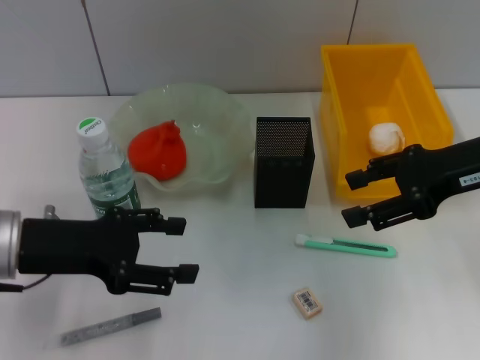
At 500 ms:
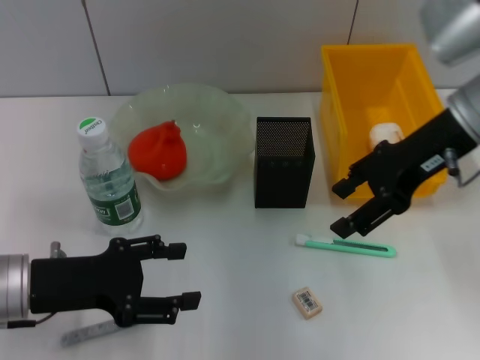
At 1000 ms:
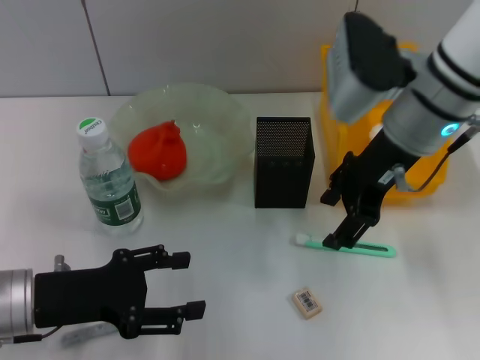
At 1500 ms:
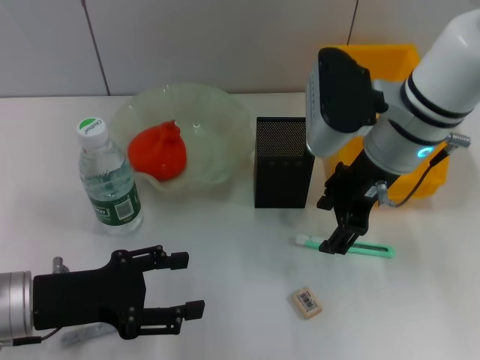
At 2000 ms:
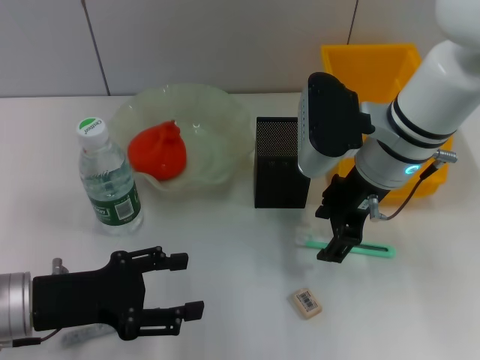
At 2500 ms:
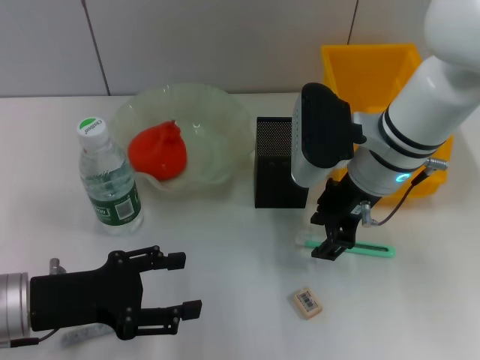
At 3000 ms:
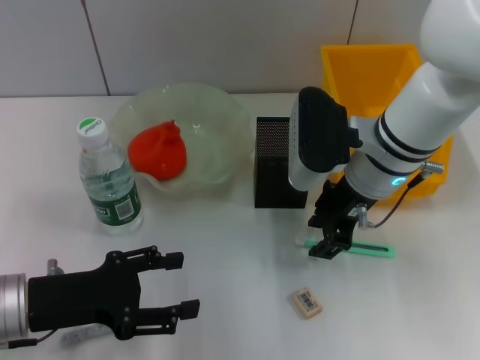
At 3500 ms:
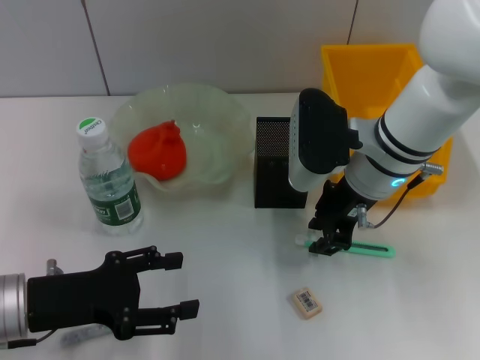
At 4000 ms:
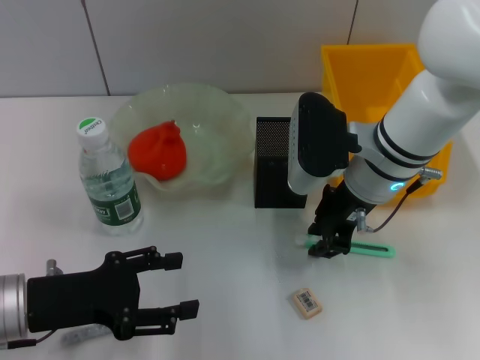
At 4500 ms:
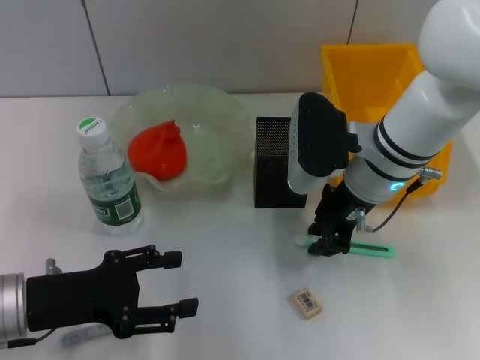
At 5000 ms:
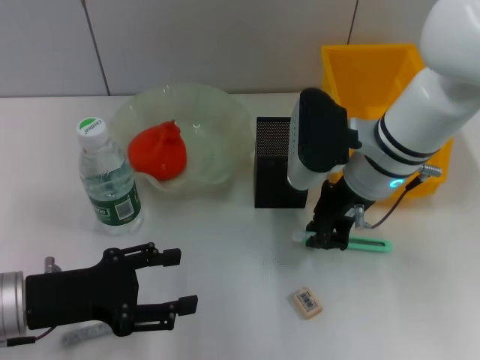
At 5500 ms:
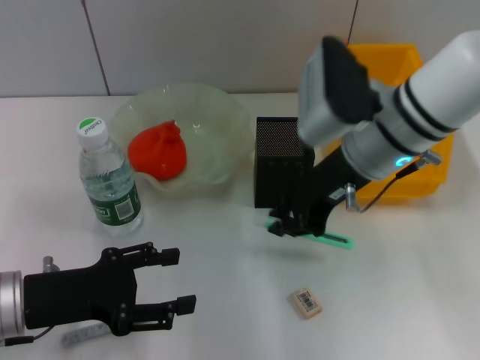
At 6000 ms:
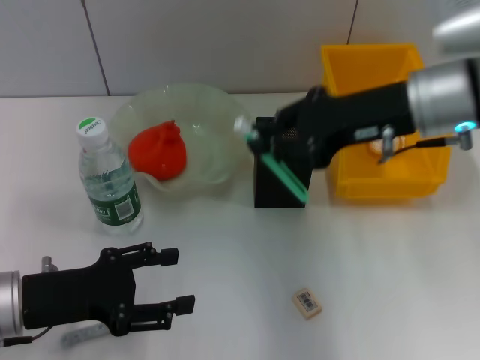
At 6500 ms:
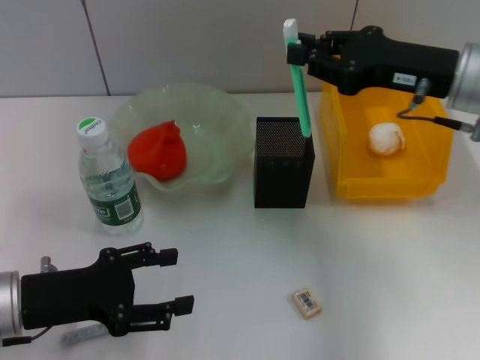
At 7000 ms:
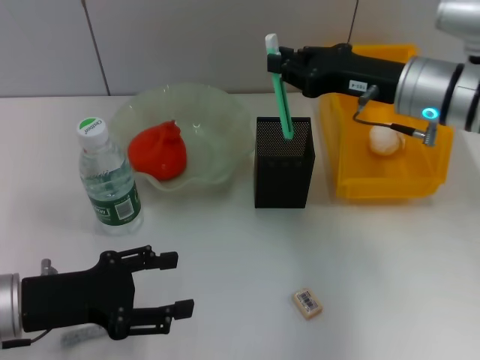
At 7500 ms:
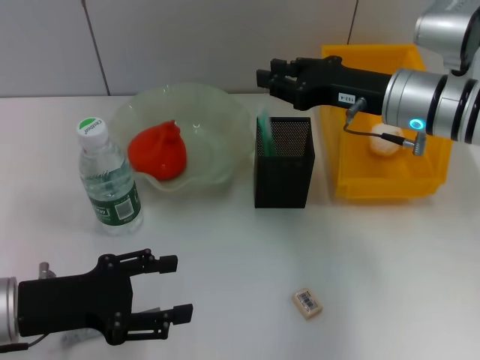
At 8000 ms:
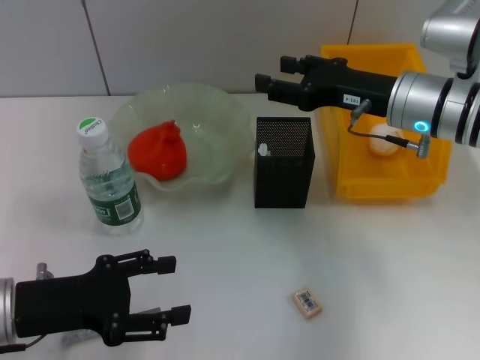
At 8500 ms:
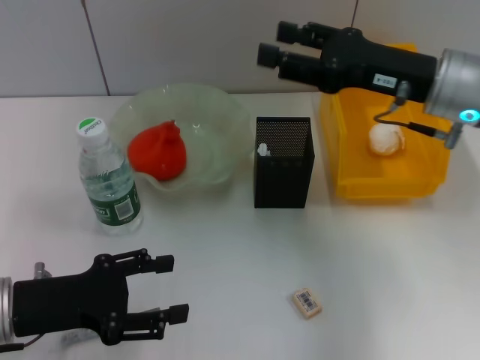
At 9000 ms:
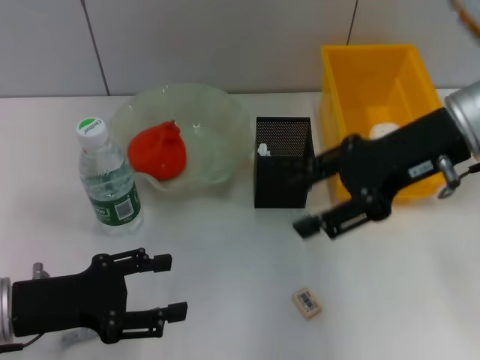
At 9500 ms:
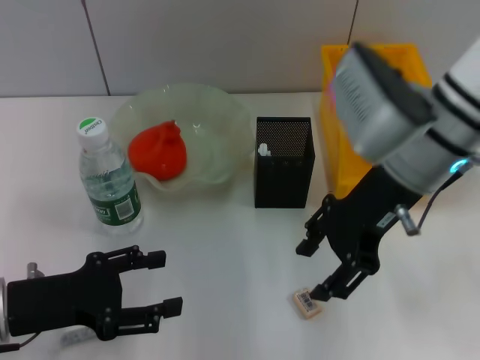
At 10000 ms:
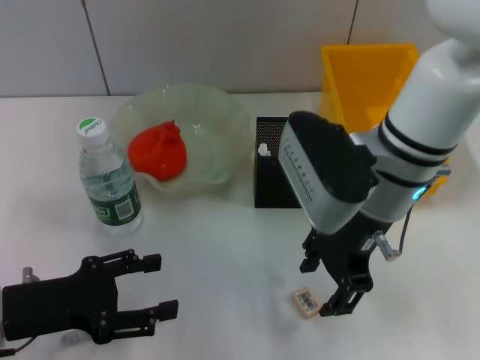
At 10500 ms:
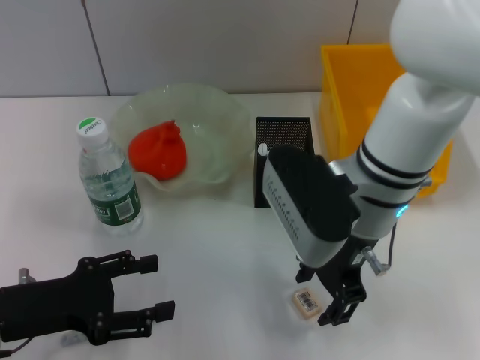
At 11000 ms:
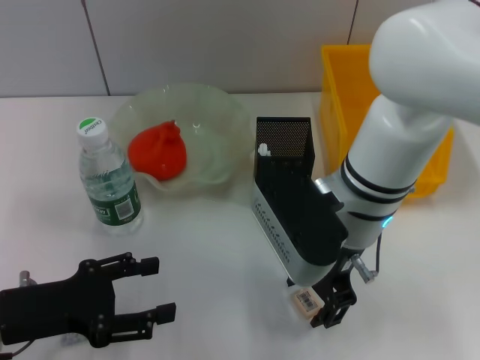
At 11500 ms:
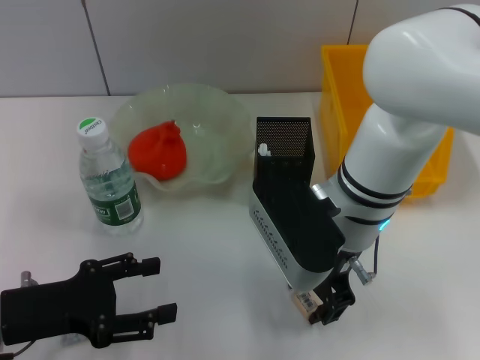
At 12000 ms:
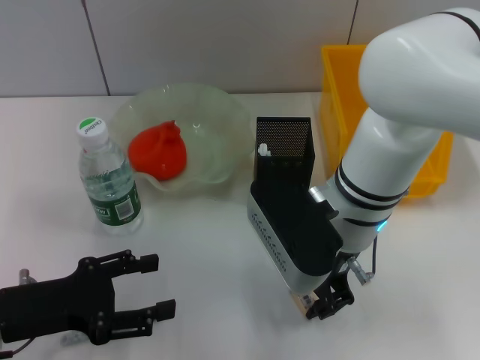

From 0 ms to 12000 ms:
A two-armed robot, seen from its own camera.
Step, from 0 ms to 4500 ms: Grab the blue utility knife with the right hand.
Step, from 5000 ms to 7500 ms: Place the blue utility knife into the pen holder with the right hand.
Step, from 8000 ms to 12000 ms: Grab the eraser with the right hand.
From 0 ms to 2000 ms: The right gripper shifts approximately 15 cm to the left. The left gripper travels downward by roughly 5 cm.
From 2000 ms to 4000 ms: The right gripper closes.
From 4000 ms to 6000 ms: The right gripper travels upward and to the right by about 10 cm.
From 6000 ms to 8000 ms: The right gripper travels downward by approximately 5 cm, and opens.
From 8000 ms to 10000 ms: The right gripper moves to the left and backward, approximately 10 cm.
From 10000 ms to 12000 ms: The grippers make only small movements.

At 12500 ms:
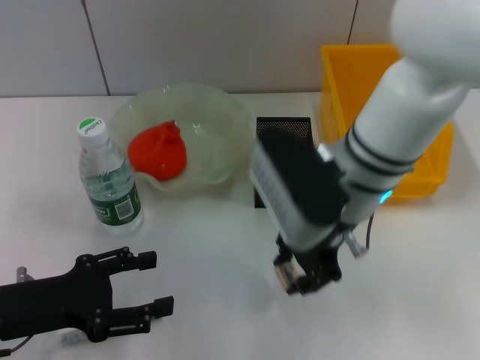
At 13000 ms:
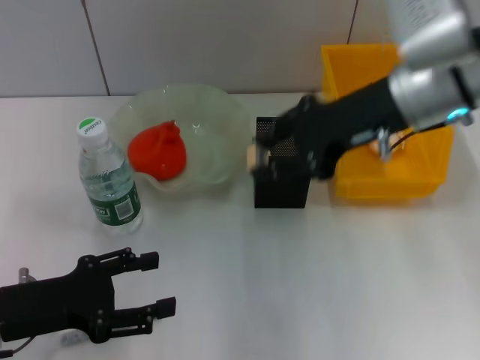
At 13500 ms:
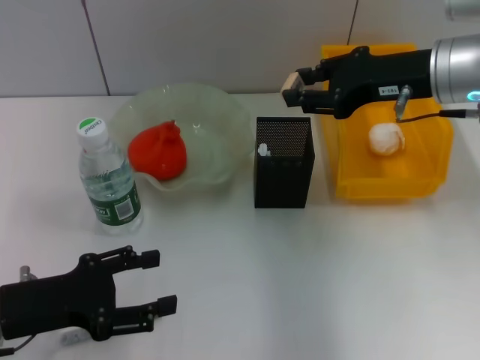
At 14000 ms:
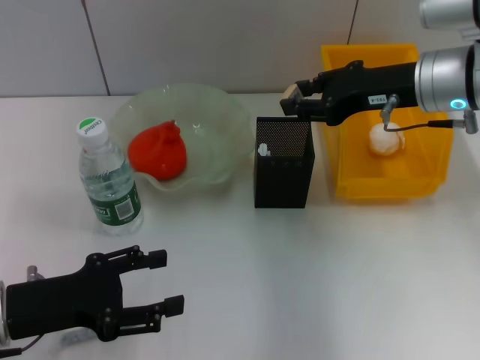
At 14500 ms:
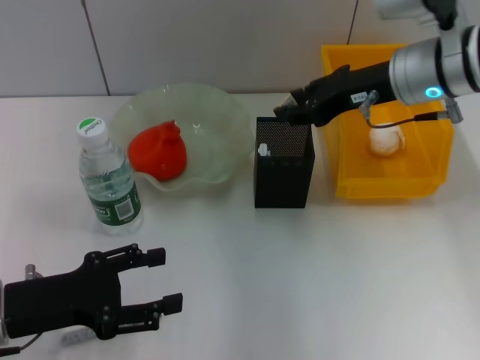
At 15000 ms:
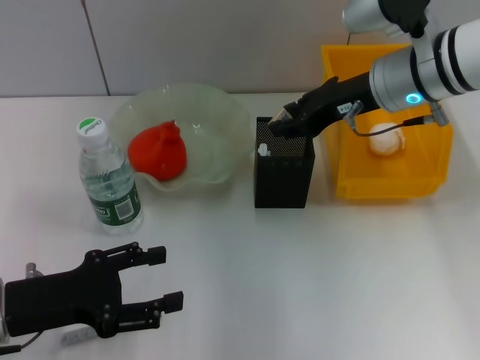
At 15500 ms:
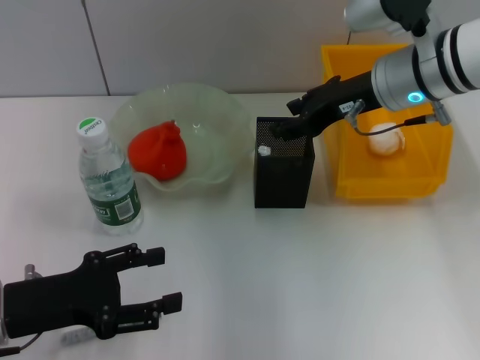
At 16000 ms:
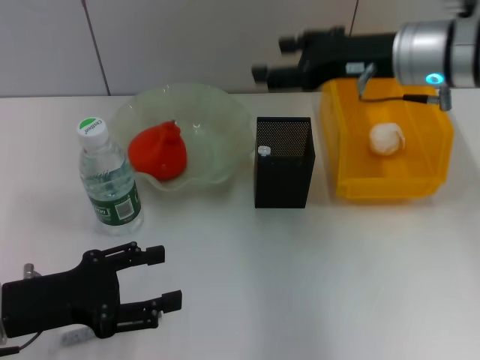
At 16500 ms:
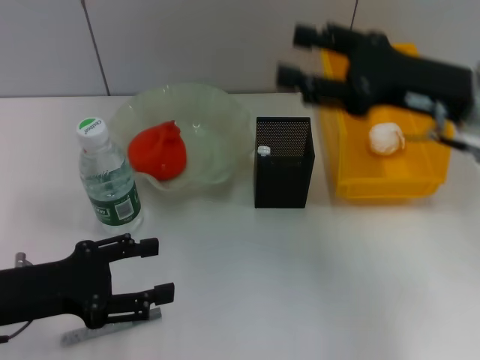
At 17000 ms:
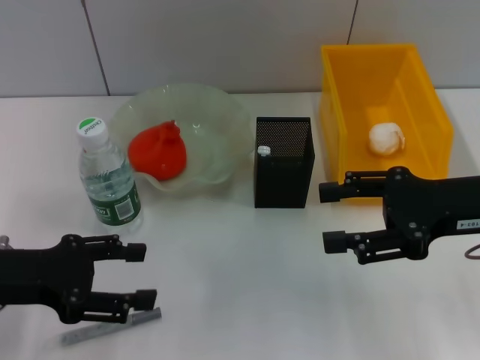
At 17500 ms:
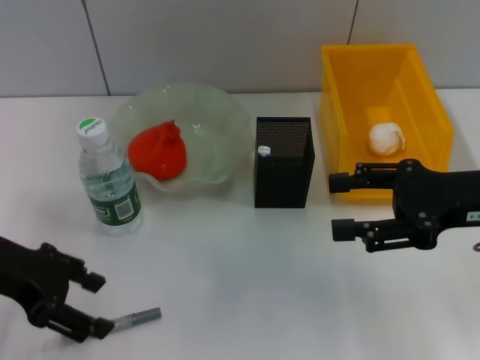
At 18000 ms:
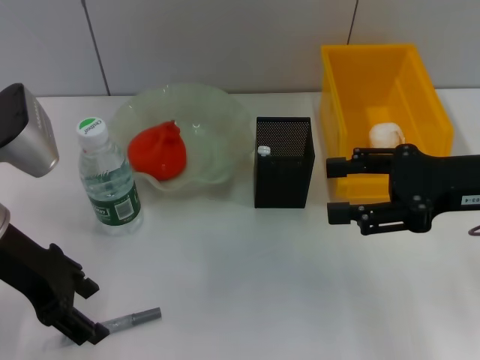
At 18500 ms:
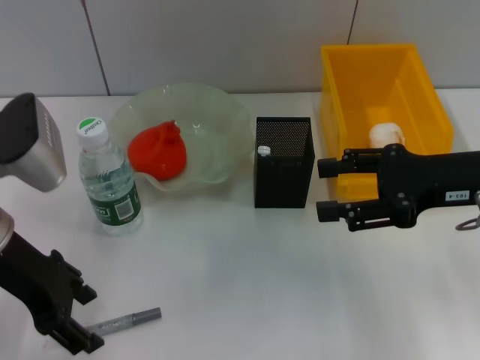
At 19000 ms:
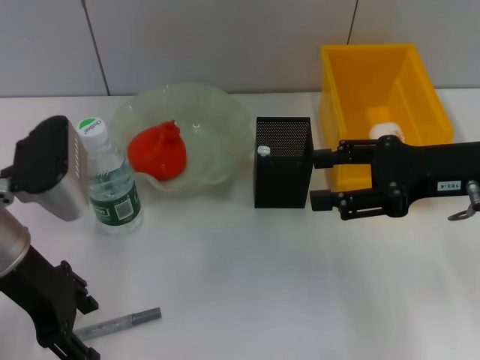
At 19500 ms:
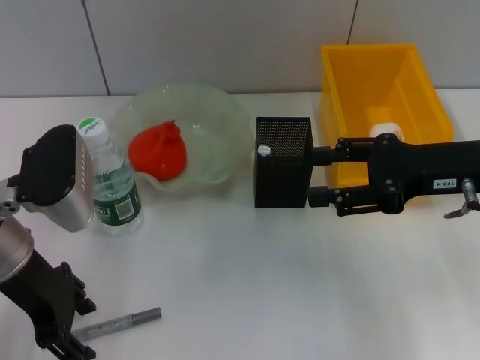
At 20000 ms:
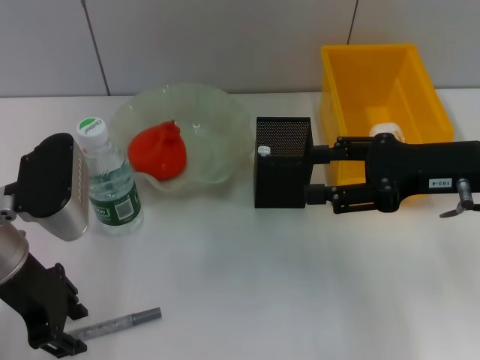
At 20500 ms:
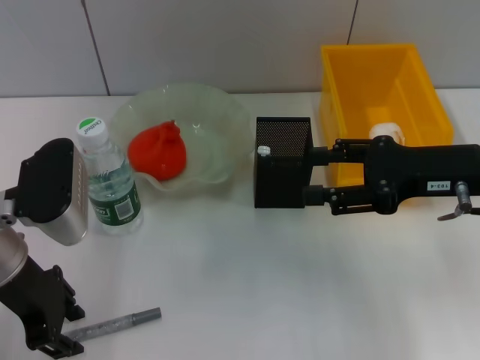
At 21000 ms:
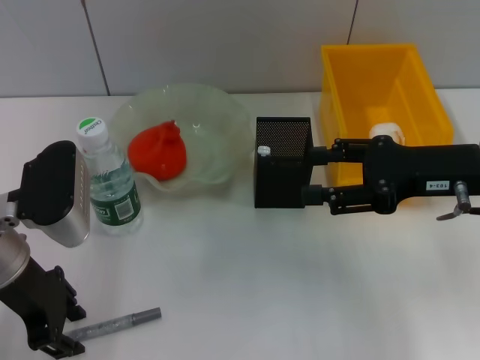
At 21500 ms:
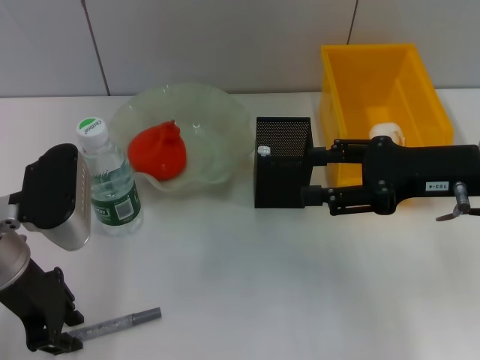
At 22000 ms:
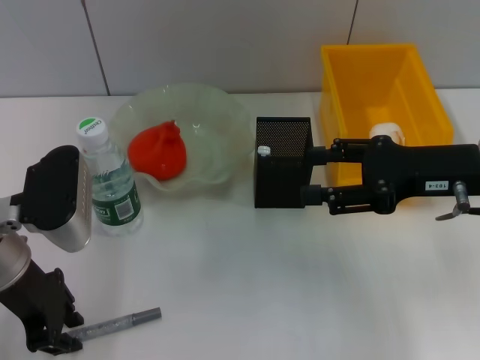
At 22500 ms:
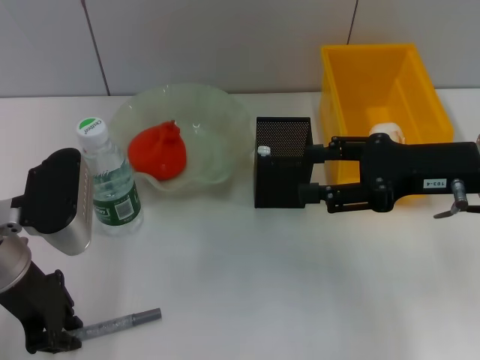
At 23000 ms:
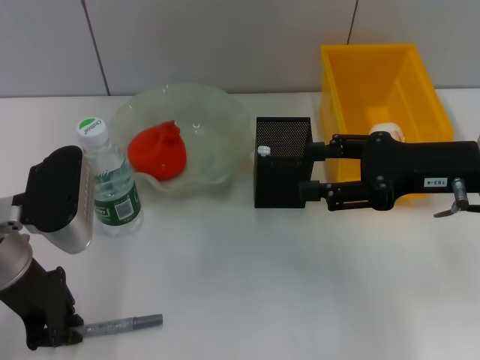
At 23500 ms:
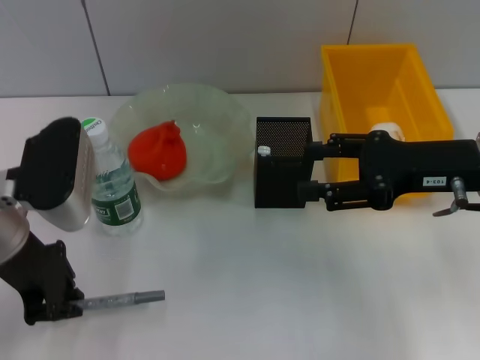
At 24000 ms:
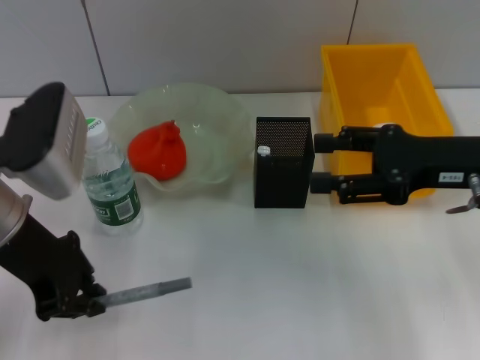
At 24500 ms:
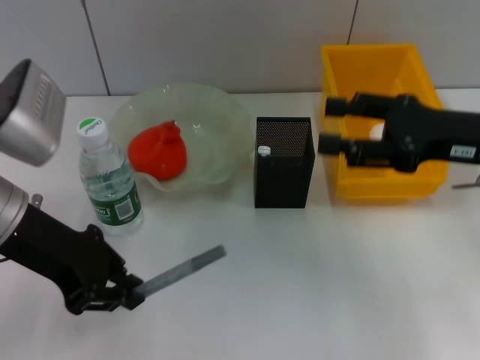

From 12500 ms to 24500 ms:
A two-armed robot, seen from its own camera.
Step, from 12500 ms to 15500 ms: Put the eraser into the pen holder with the right hand.
Step, from 16000 ms to 23000 ms: Grab the gray glue with the left hand.
From 12500 ms to 14500 ms: The right gripper shifts roughly 10 cm to the right and forward.
From 14500 ms to 16500 ms: The right gripper travels backward by some 10 cm, and opens.
From 16500 ms to 18500 ms: The left gripper travels upward and forward by approximately 10 cm.
From 18500 ms to 20500 ms: The left gripper closes.
From 20500 ms to 22500 ms: The left gripper closes.
From 22500 ms to 24500 ms: The left gripper moves upward, some 5 cm.

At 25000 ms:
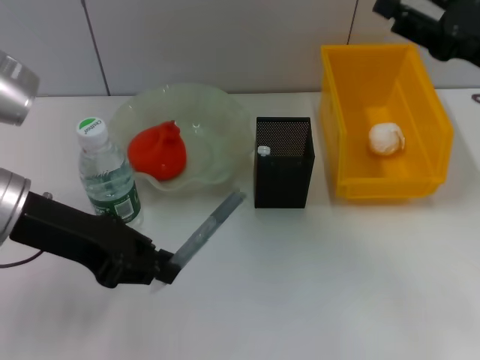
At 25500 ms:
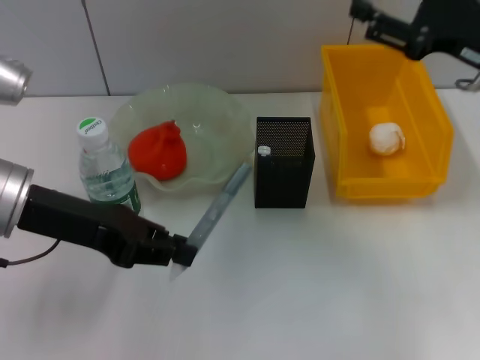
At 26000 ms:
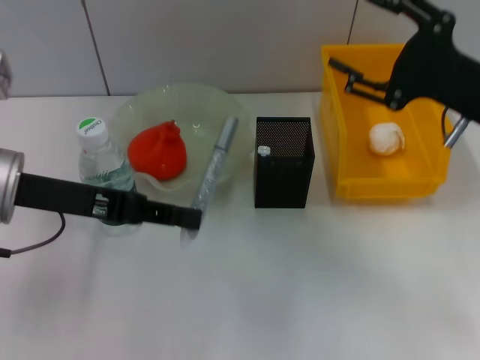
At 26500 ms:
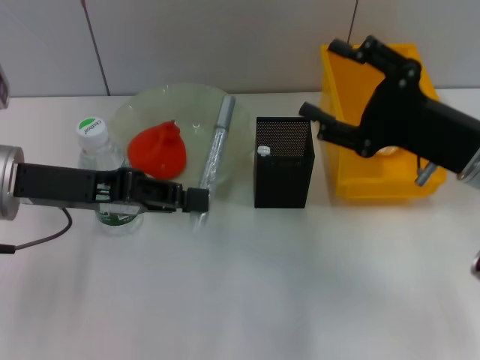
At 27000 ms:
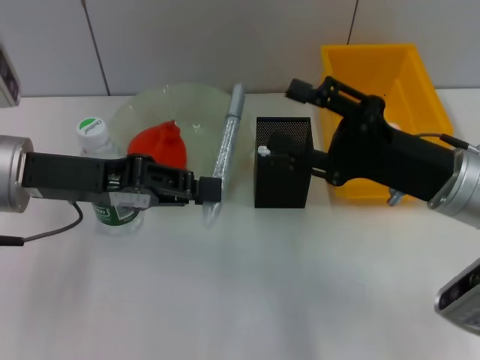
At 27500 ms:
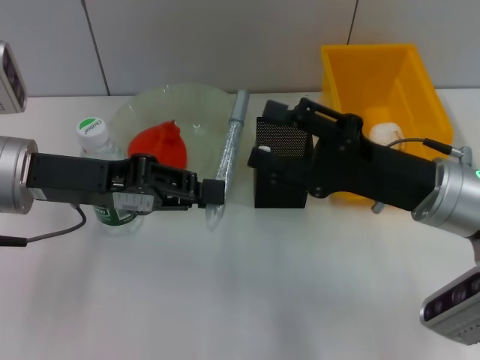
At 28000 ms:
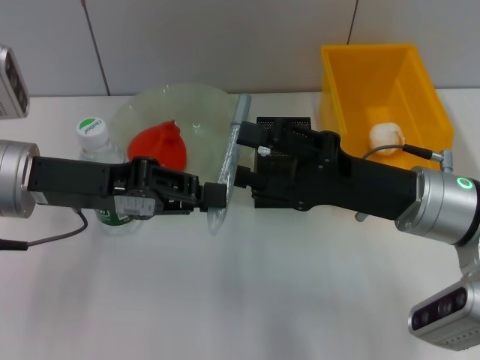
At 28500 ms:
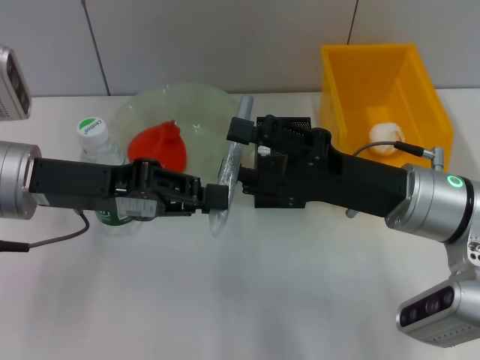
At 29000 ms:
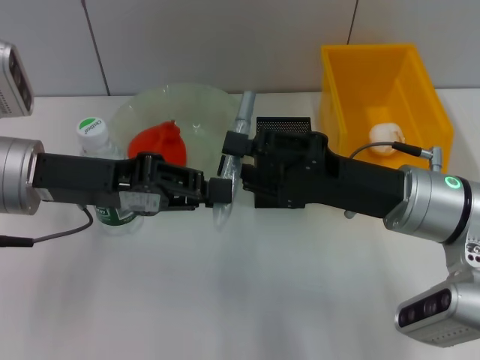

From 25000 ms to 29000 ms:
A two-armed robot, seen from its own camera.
From 25000 ms to 27000 ms: The right gripper travels to the left and downward by about 10 cm.
From 27000 ms to 29000 ms: The grippers stay close to where they were, moving slightly.
